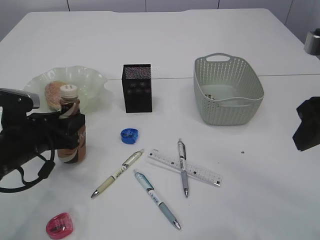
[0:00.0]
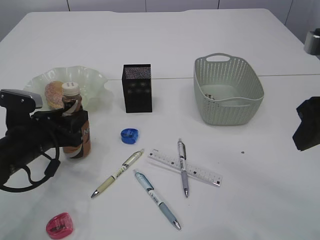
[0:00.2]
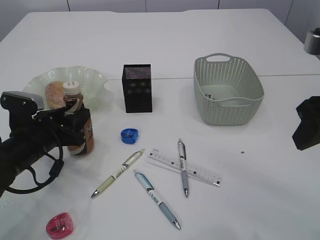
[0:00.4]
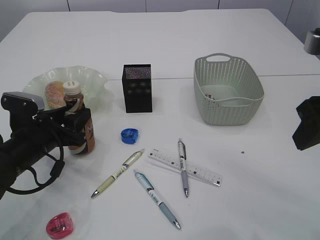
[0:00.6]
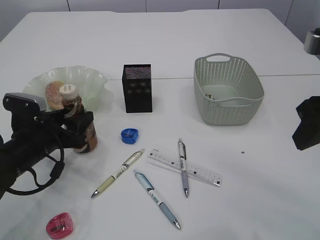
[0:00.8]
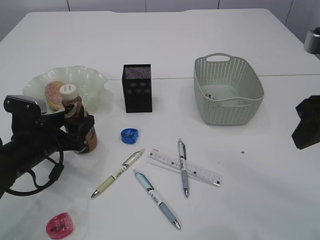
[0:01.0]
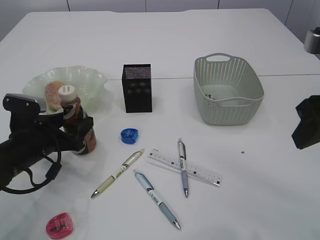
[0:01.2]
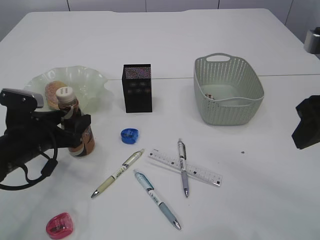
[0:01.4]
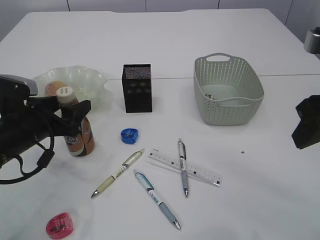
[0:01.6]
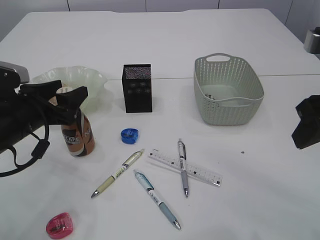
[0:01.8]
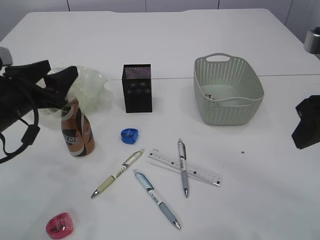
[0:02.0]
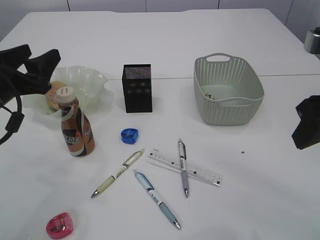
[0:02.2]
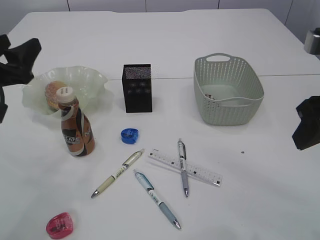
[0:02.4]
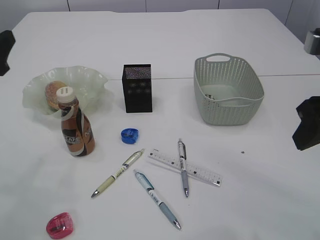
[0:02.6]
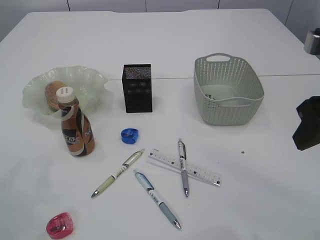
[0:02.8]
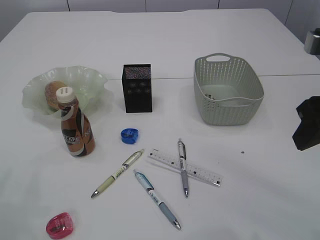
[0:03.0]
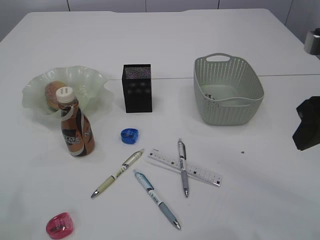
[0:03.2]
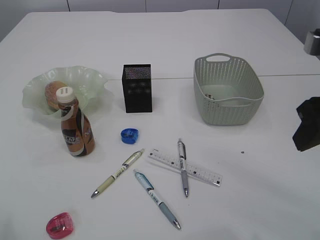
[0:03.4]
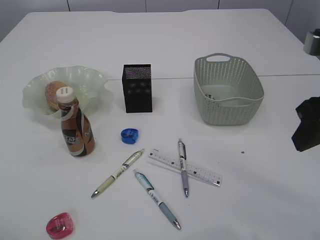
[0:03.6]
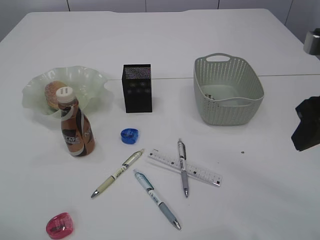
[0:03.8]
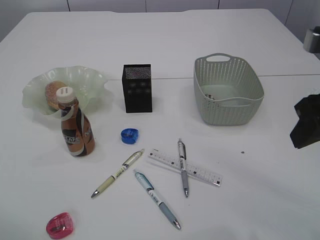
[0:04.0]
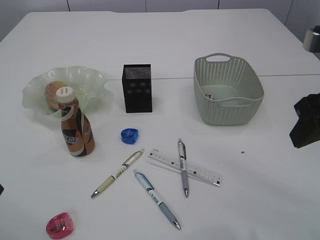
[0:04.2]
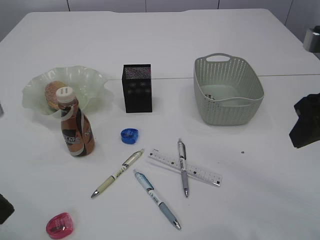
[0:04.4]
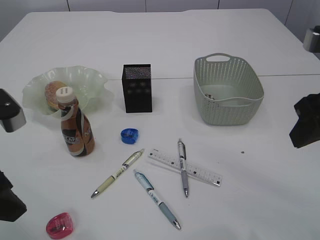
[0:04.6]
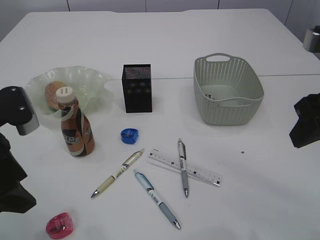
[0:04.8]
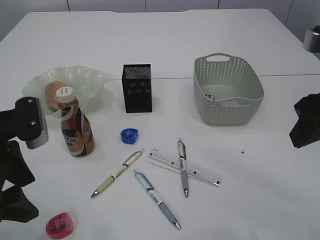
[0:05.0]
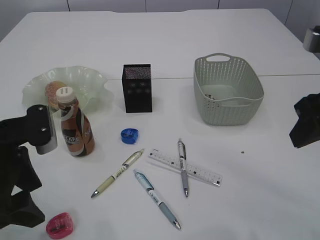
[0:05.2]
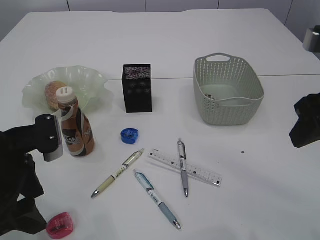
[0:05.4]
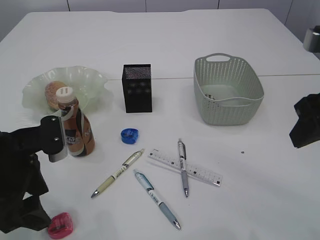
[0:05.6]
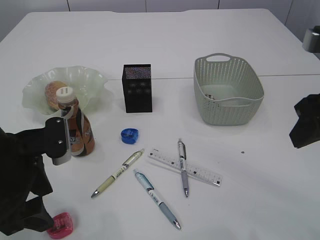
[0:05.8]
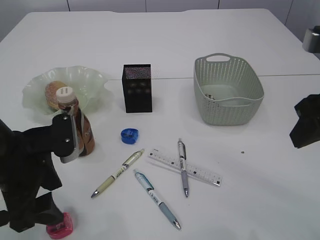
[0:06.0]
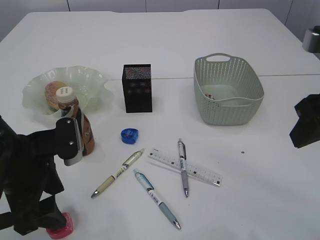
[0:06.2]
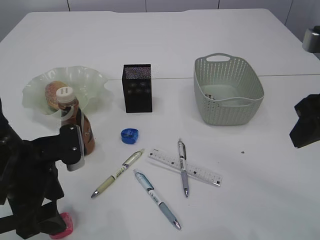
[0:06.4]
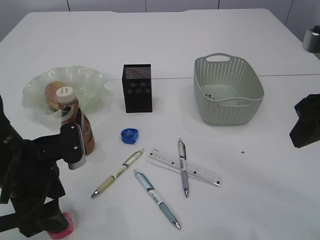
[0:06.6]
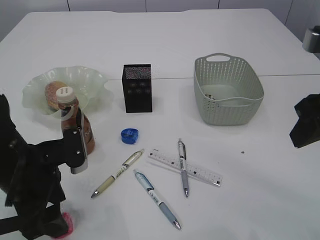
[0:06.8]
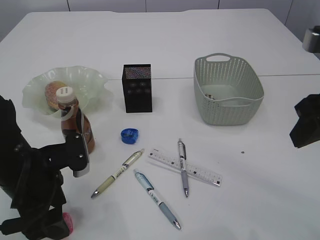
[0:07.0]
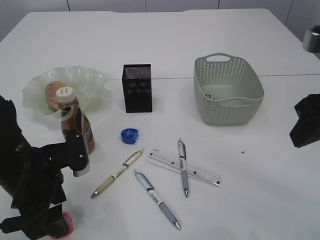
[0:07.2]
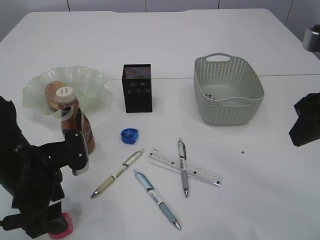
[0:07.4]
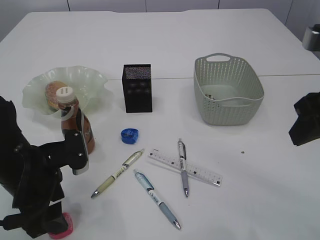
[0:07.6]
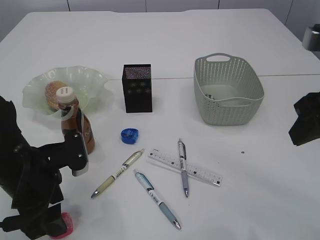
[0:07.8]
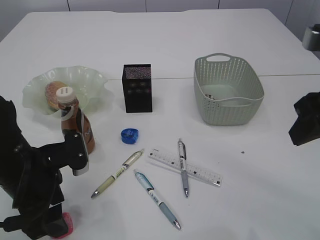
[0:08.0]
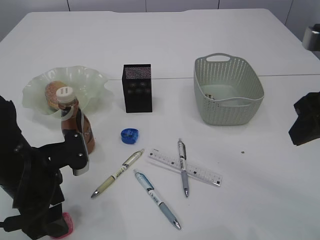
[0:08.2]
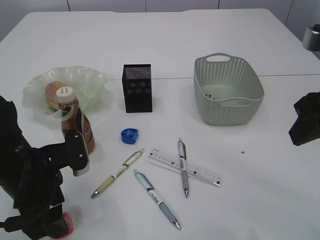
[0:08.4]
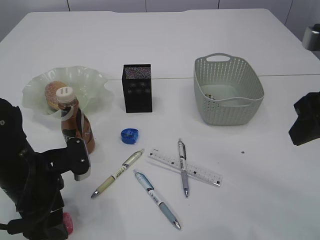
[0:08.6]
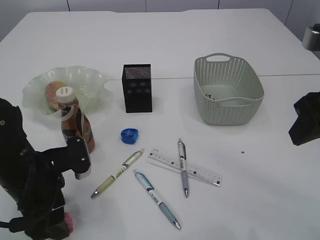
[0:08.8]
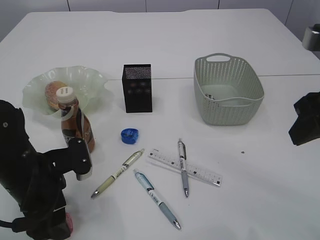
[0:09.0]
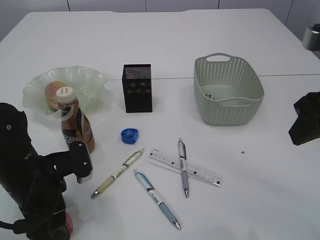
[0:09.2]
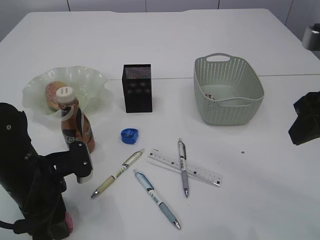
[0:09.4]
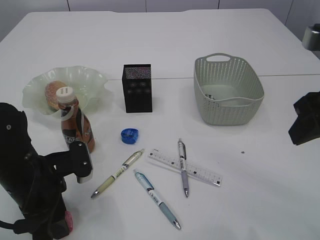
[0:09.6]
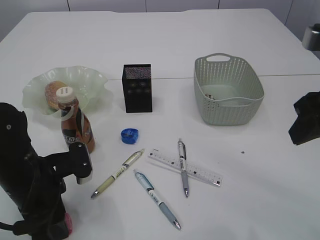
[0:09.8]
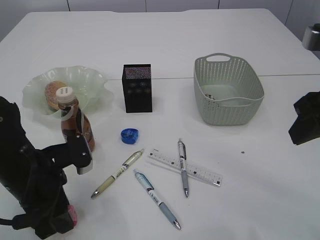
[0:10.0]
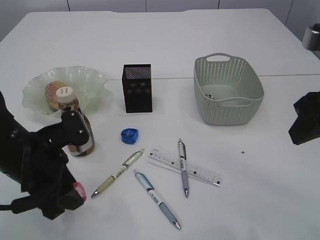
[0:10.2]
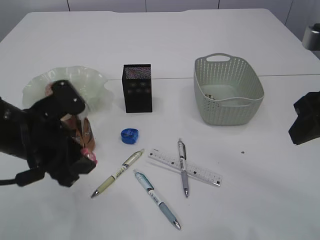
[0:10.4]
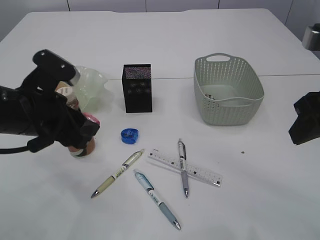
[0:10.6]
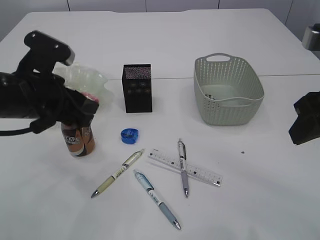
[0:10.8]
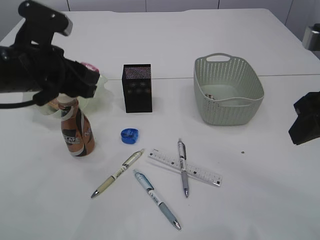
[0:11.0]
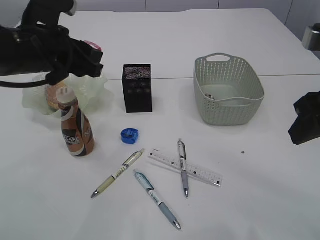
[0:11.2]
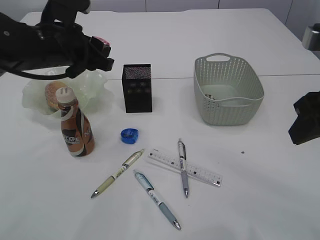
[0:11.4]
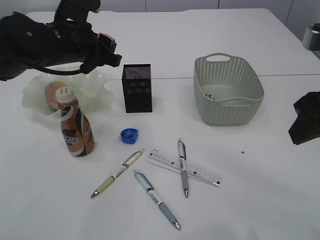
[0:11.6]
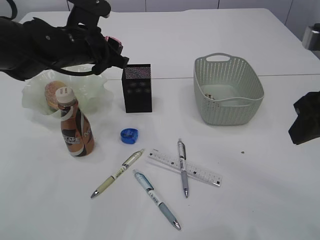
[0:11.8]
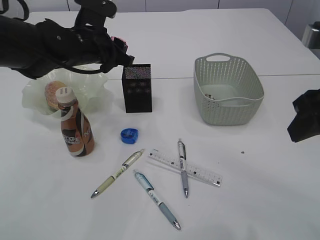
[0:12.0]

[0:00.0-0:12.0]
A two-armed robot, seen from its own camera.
Step, 0:00.0 to 0:02.2: Place the bottle.
Step, 0:02.4 to 0:10.4: pick up the red pencil sharpener.
0:00.0 to 0:01.6: The left gripper opens up.
0:01.6 to 0:03.0: The left gripper is displaced upward and to the left by approximately 15 cm.
0:04.4 to 0:06.0: The left gripper goes roughly 10 cm downward and forward.
0:06.0 to 0:09.0: The grippers make only small movements.
0:09.0 to 0:10.4: The left gripper shifts roughly 5 cm upward, and closes.
0:10.4 to 0:12.0: The left gripper shifts some 15 cm forward.

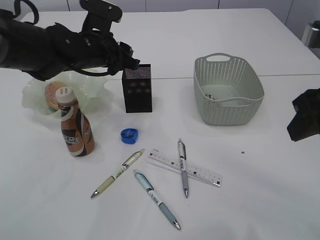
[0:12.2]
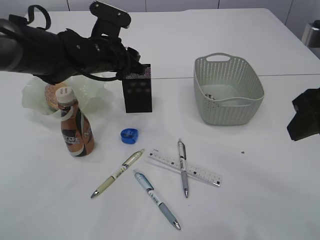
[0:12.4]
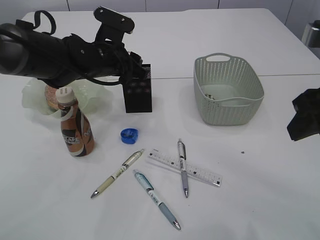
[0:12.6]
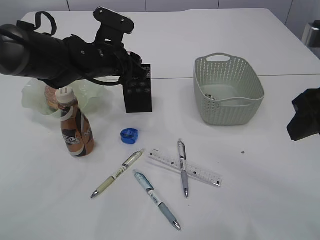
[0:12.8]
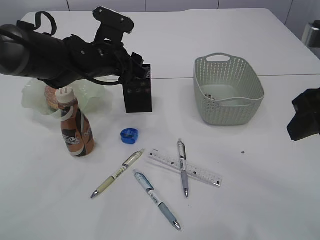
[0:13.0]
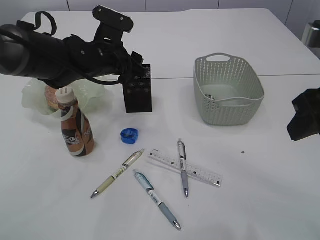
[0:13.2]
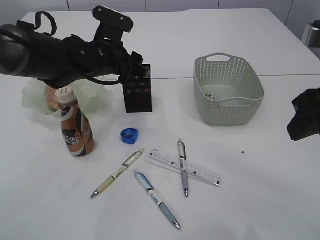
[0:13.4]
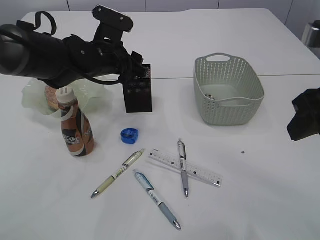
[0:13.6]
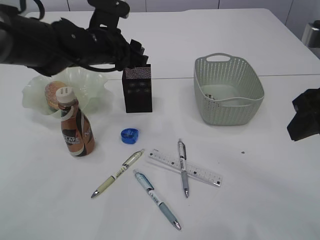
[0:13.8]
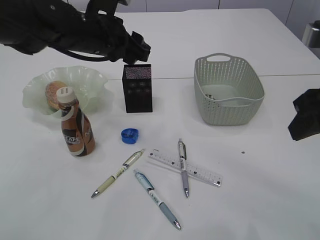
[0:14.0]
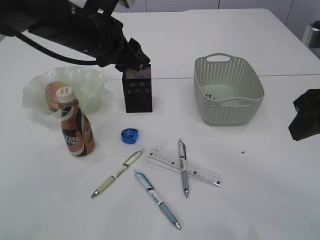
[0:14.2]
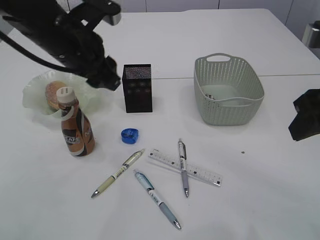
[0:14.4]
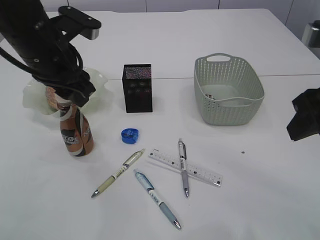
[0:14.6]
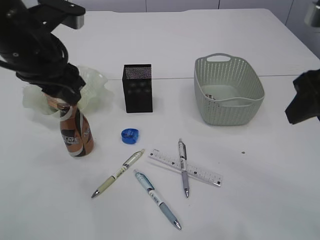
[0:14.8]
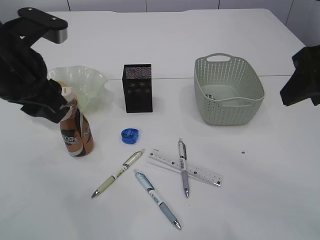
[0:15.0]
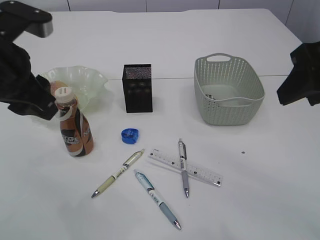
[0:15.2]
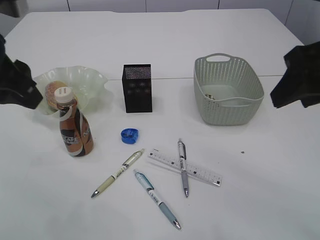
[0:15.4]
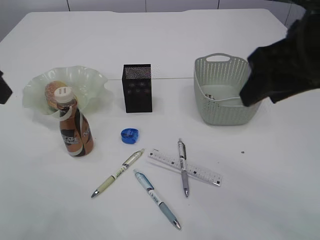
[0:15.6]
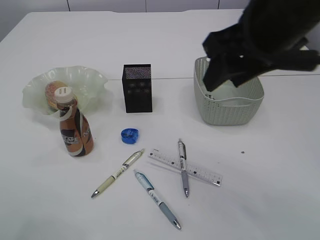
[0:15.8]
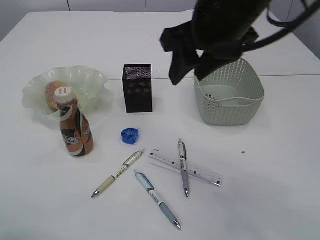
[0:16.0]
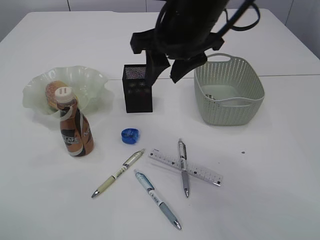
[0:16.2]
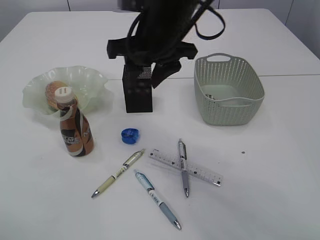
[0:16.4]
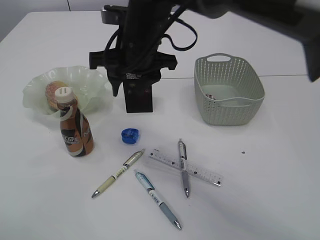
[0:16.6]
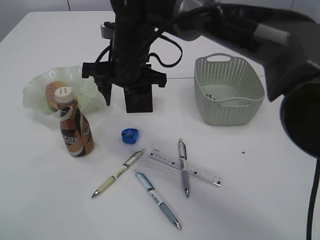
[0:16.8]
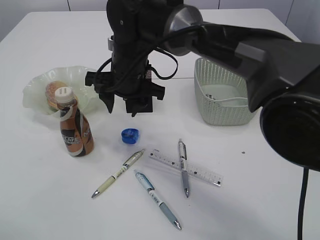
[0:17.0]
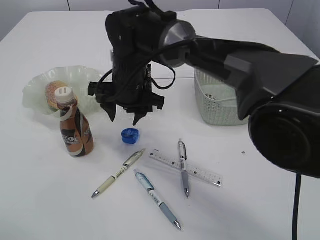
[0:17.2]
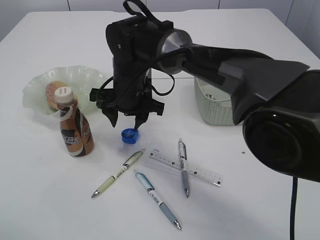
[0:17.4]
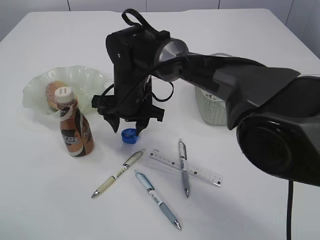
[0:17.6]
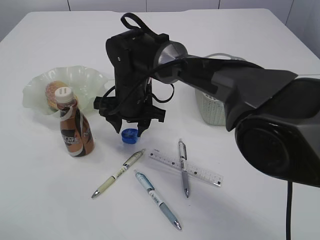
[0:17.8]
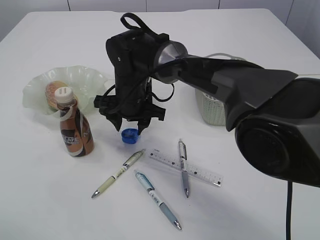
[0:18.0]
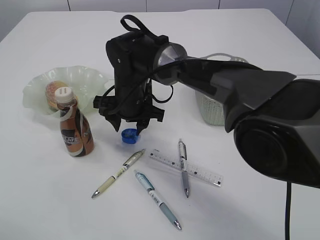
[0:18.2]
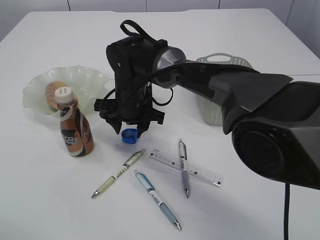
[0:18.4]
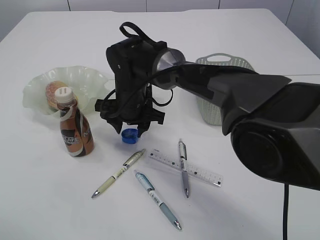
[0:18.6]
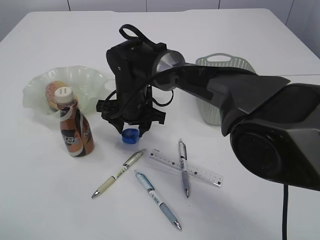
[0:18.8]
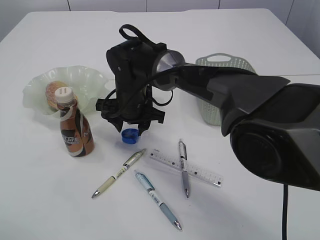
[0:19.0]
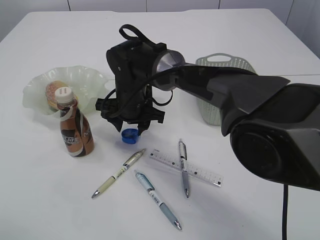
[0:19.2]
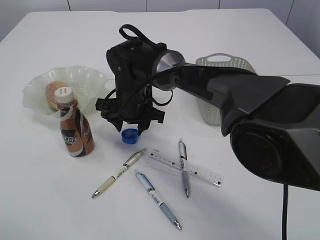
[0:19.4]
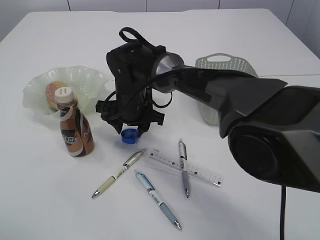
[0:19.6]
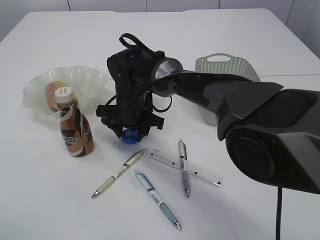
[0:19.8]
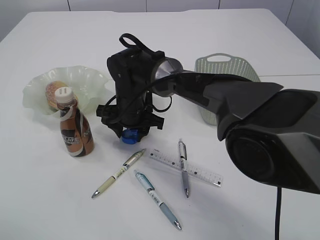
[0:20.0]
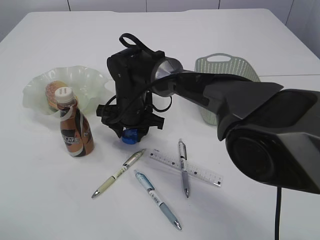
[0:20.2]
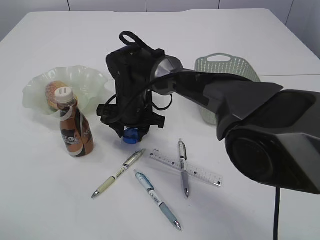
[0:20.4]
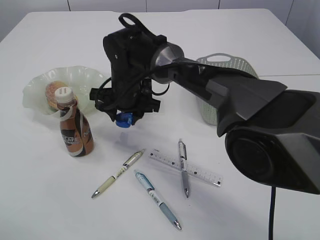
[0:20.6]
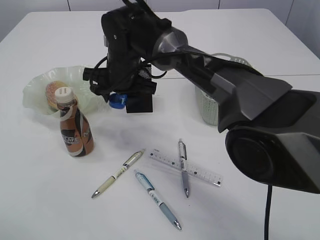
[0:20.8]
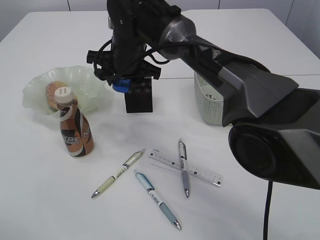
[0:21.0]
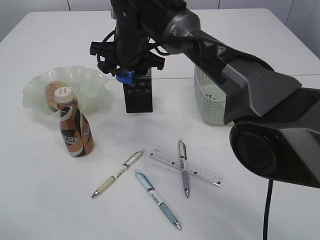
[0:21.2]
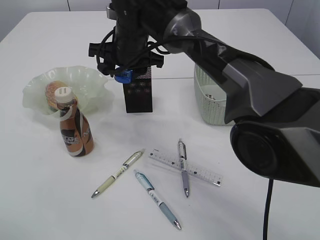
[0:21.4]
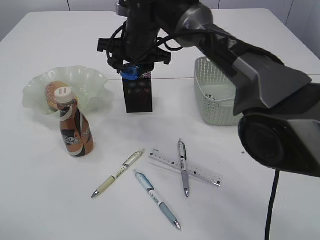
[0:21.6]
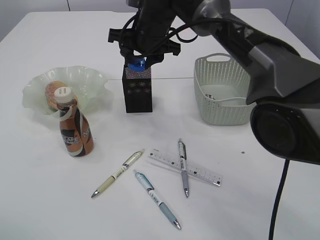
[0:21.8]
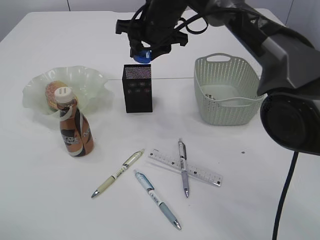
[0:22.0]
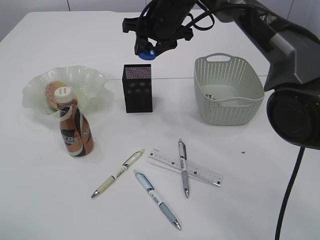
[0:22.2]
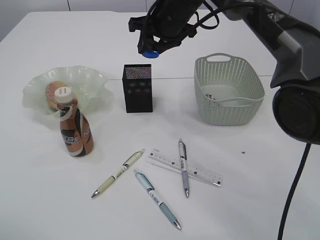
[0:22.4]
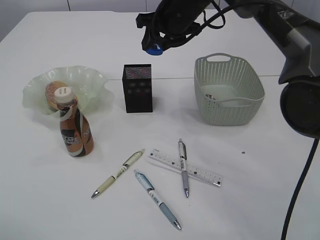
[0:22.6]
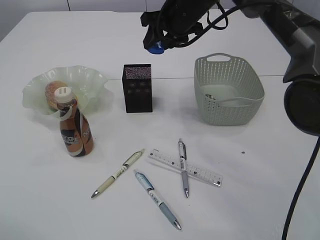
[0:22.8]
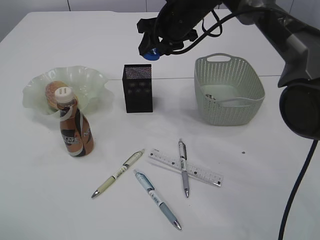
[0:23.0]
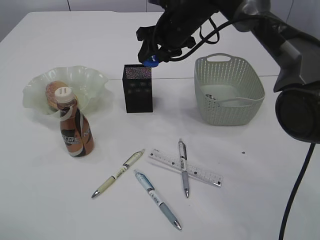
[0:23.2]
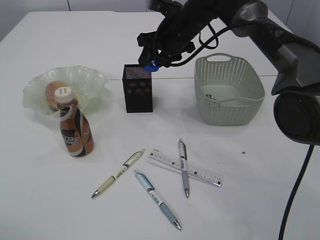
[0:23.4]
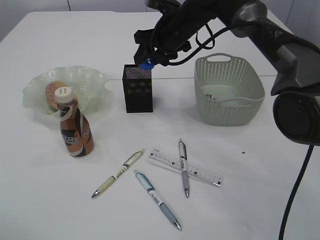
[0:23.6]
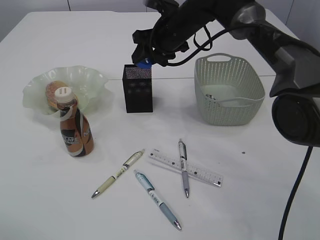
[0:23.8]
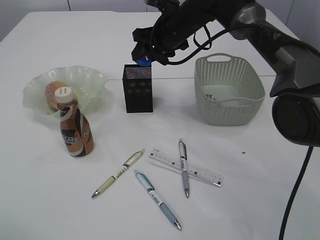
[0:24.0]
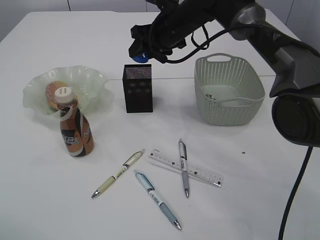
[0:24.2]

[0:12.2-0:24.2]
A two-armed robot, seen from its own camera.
Step, 0:14.0 to 0:20.6: pick up the blue pencil sharpener.
0:12.2 to 0:13.8: The left gripper opens up.
0:13.8 to 0:15.2: The left gripper travels backward, to the left and upward by roughly 20 cm, and closes its fingers.
0:15.2 to 0:16.6: The right gripper heads to the left and forward, covering roughly 30 cm; the left gripper goes approximately 15 cm backward and to the left.
0:16.6 to 0:18.2: The right gripper goes some 15 cm downward.
0:18.2 to 0:19.8: The grippers move only a little.
0:19.8 to 0:21.2: The right gripper travels upward by roughly 10 cm.
0:21.2 to 0:22.6: The right gripper is displaced to the right by some 10 cm.
0:22.6 to 0:24.2: The grippers make only small movements.
